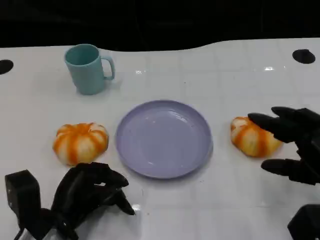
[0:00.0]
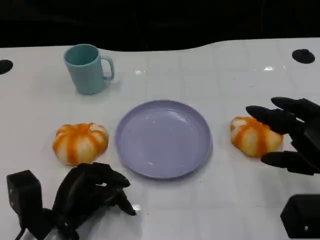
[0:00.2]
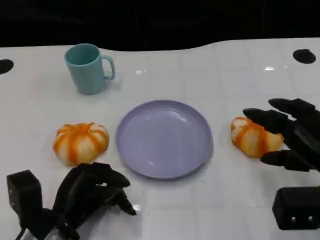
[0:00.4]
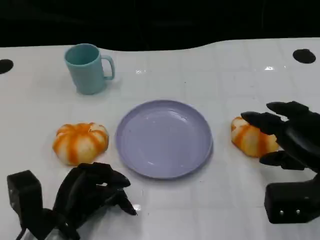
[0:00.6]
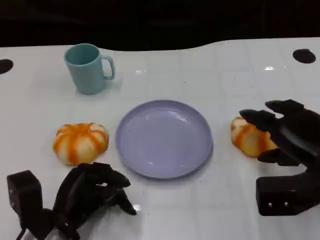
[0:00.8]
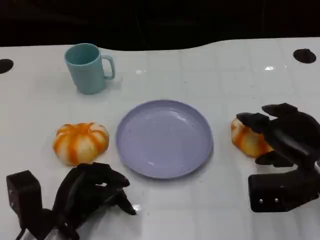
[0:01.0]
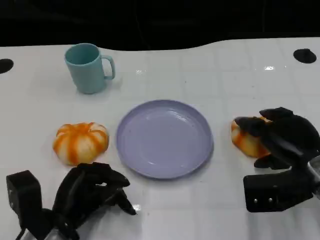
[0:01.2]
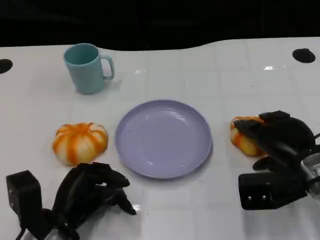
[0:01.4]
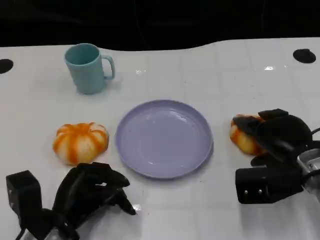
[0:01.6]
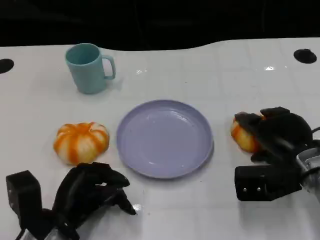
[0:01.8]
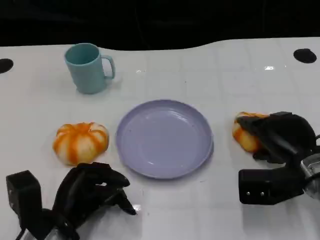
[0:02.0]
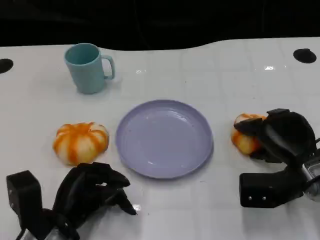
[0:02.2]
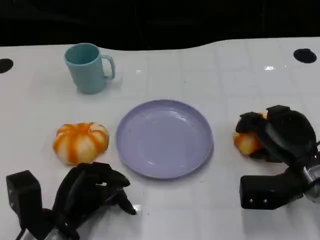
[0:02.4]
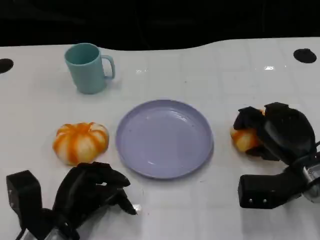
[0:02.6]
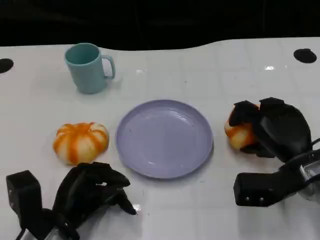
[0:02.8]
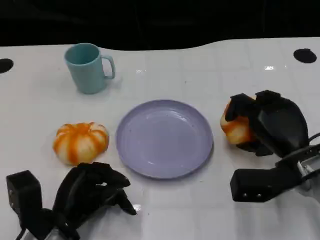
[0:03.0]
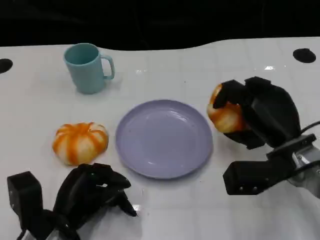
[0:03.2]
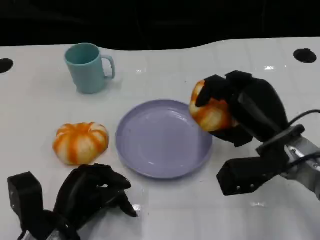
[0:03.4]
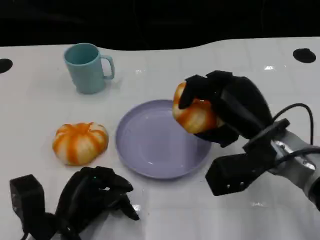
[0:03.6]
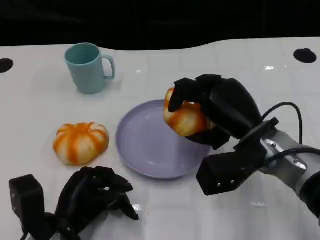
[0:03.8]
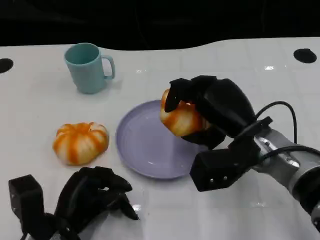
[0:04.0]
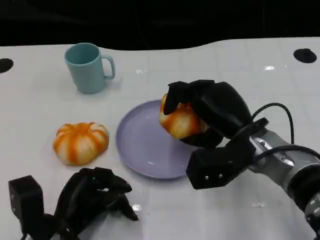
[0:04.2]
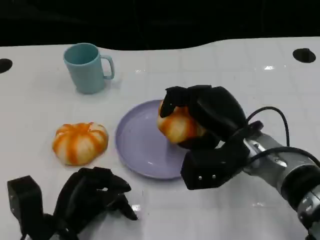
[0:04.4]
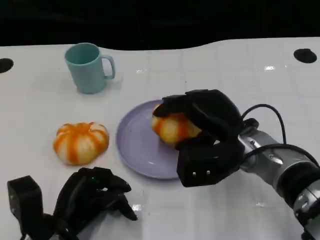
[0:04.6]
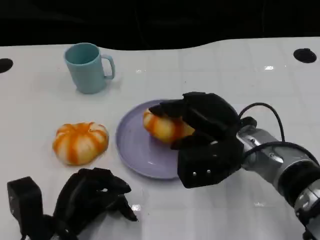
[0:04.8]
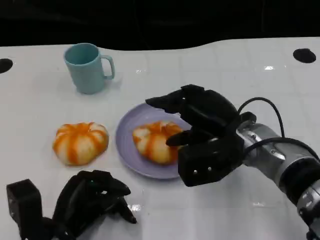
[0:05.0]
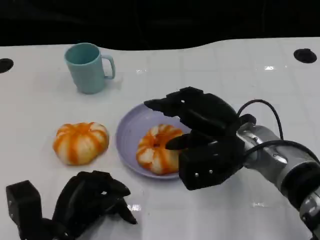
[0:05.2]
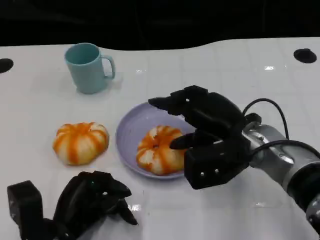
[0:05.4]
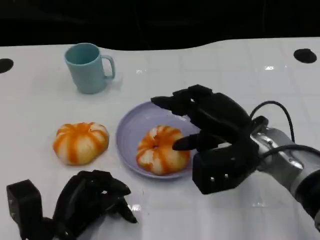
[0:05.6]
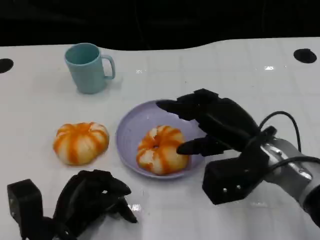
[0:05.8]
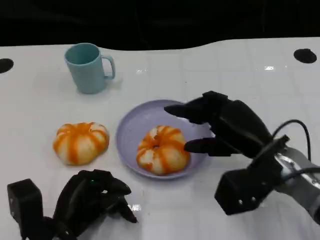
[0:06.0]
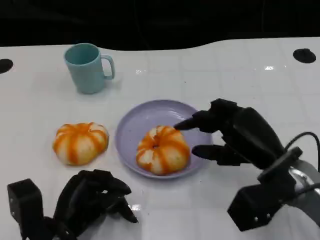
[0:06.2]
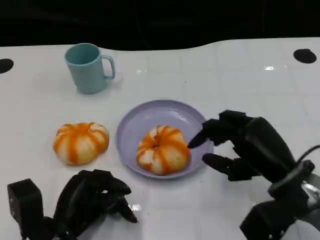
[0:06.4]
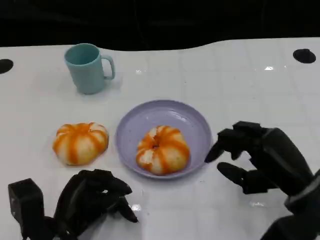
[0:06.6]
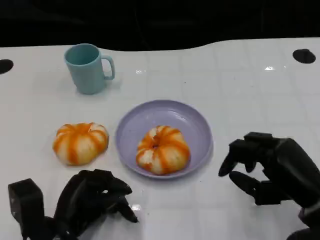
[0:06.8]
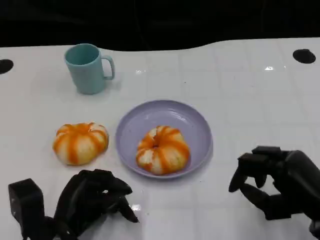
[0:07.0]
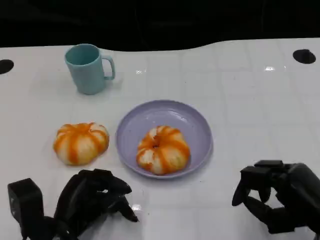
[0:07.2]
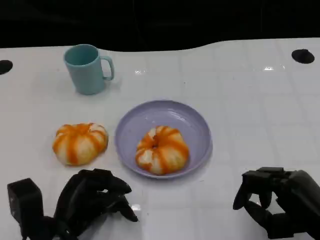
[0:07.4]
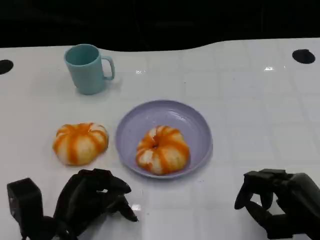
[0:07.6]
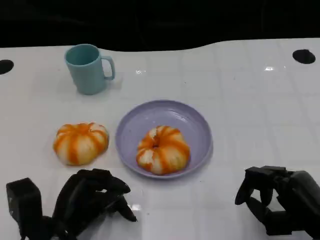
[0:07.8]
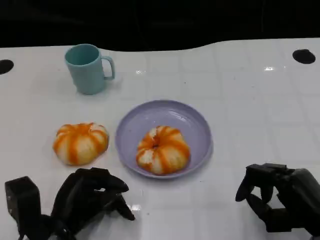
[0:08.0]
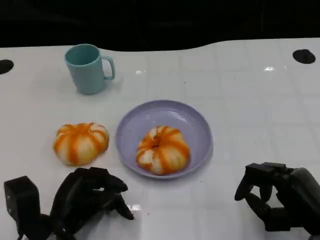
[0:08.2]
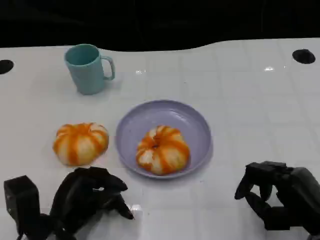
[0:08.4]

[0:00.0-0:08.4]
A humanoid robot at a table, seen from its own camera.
Task of the whole recording: Grasp the bread from the table and place it into the plate.
0:00.0 to 0:01.4: The right hand travels forward by some 5 cm.
0:02.8 to 0:04.2: The right hand is displaced to the left by about 10 cm.
0:04.2 to 0:05.6: The hands move only a little.
0:05.6 to 0:07.0: The right hand moves to the right and backward, roughly 15 cm.
0:07.0 to 0:08.4: There are only small adjustments of the hands.

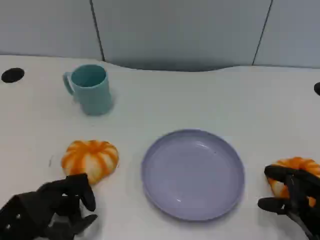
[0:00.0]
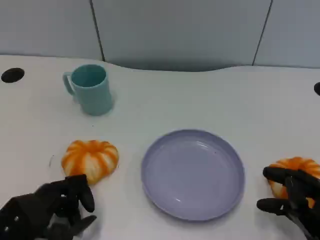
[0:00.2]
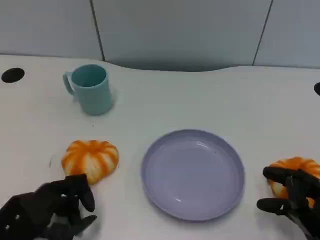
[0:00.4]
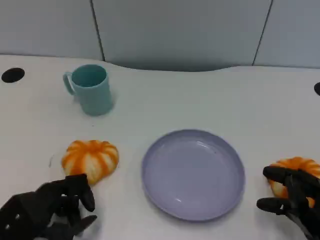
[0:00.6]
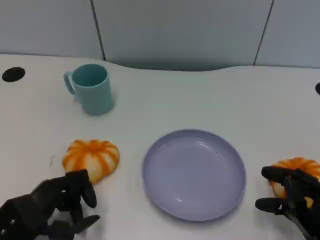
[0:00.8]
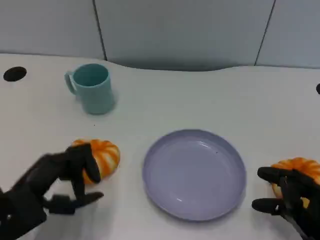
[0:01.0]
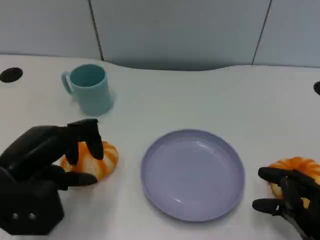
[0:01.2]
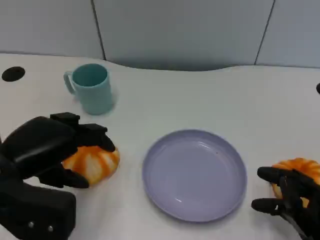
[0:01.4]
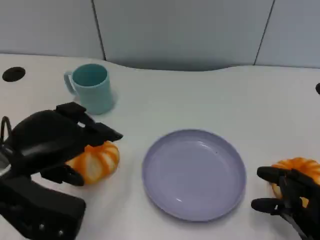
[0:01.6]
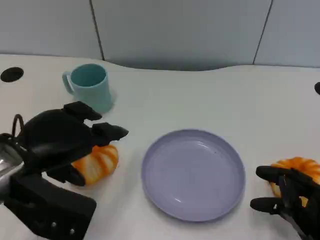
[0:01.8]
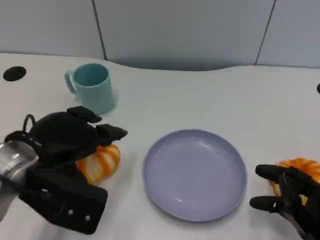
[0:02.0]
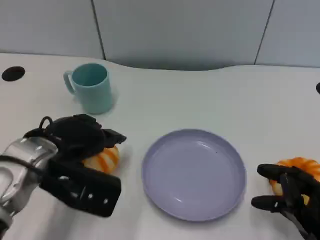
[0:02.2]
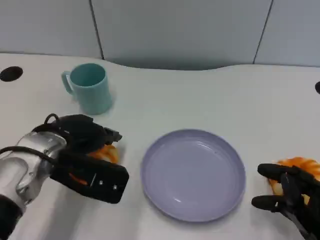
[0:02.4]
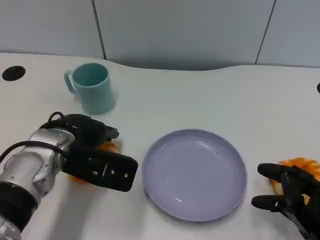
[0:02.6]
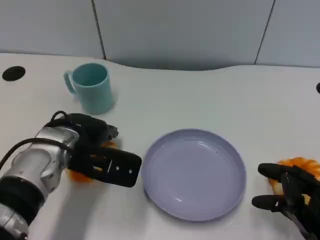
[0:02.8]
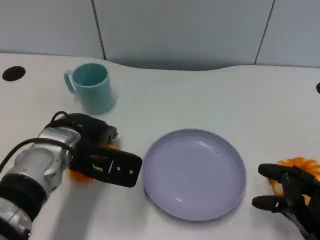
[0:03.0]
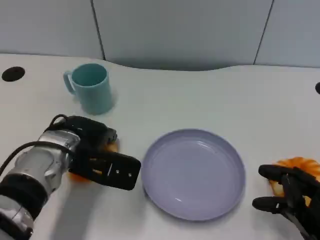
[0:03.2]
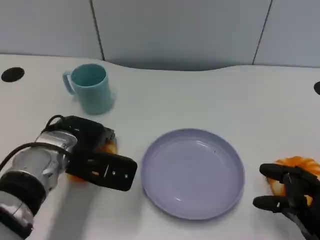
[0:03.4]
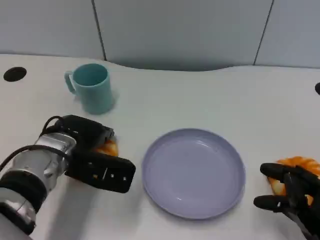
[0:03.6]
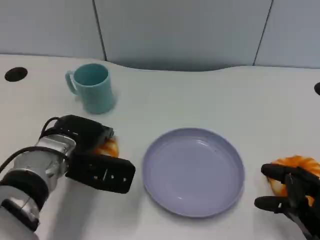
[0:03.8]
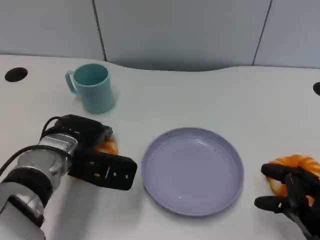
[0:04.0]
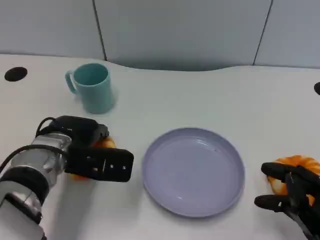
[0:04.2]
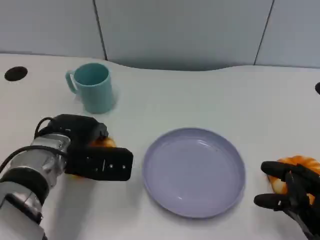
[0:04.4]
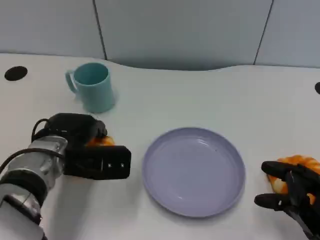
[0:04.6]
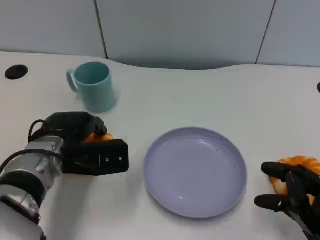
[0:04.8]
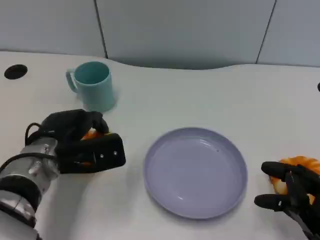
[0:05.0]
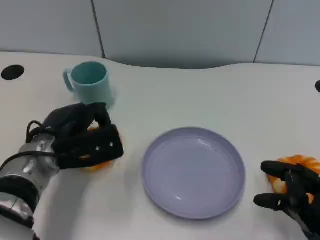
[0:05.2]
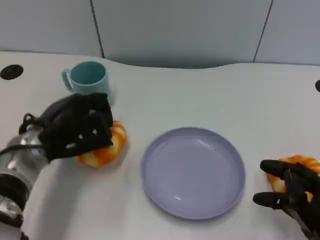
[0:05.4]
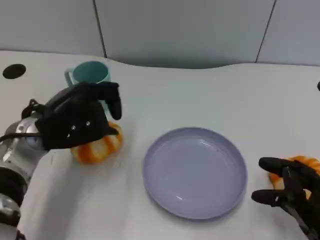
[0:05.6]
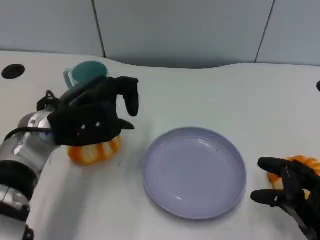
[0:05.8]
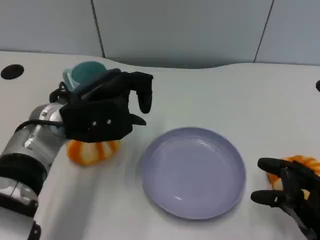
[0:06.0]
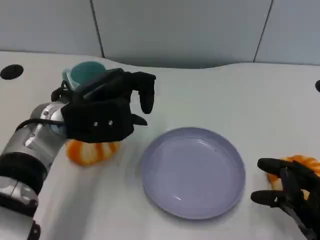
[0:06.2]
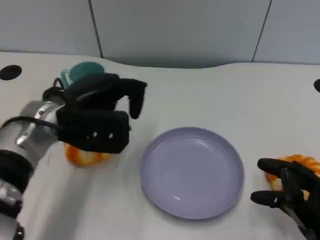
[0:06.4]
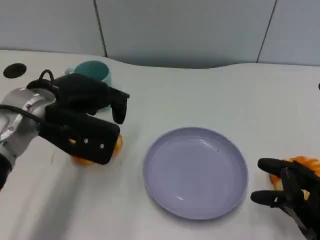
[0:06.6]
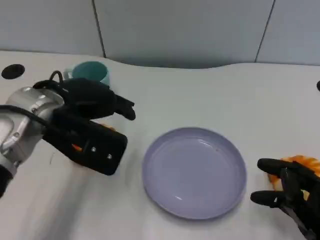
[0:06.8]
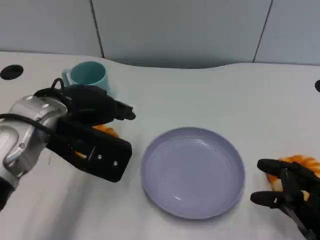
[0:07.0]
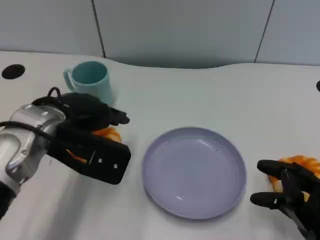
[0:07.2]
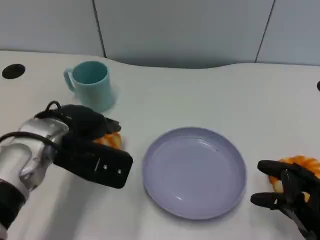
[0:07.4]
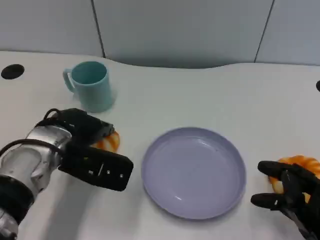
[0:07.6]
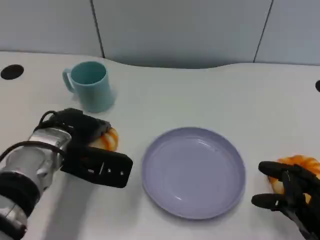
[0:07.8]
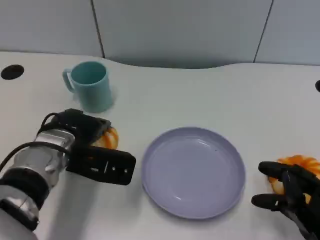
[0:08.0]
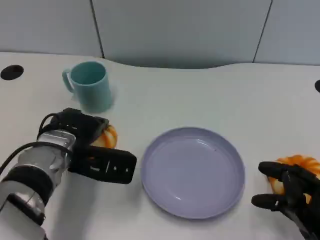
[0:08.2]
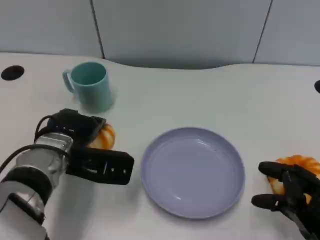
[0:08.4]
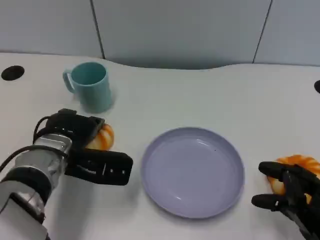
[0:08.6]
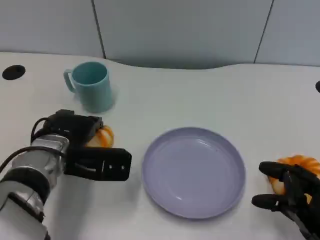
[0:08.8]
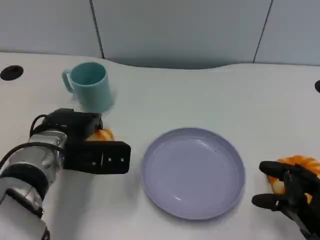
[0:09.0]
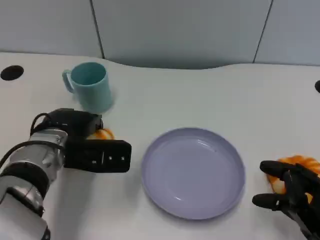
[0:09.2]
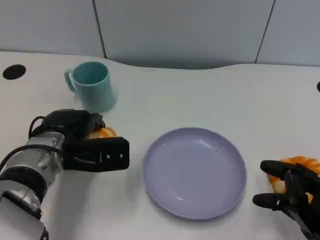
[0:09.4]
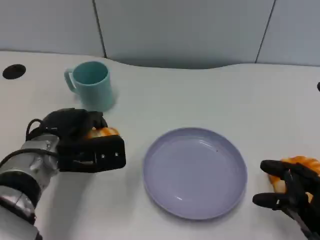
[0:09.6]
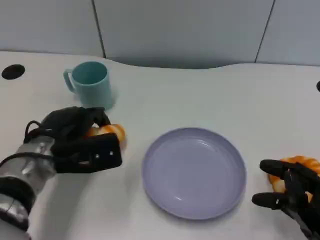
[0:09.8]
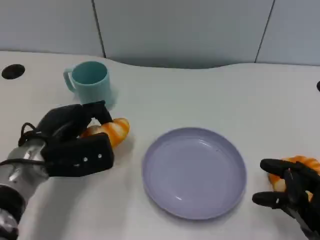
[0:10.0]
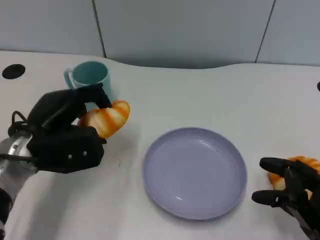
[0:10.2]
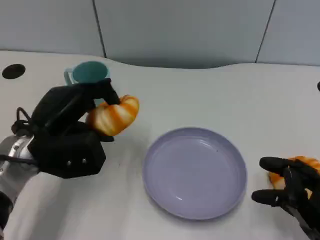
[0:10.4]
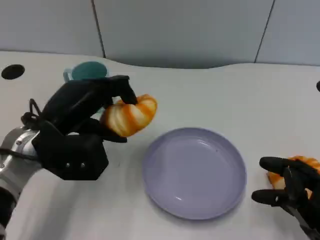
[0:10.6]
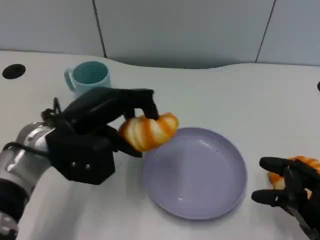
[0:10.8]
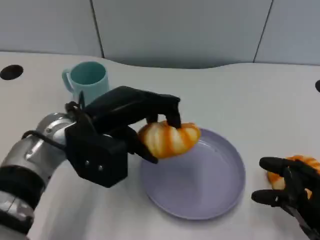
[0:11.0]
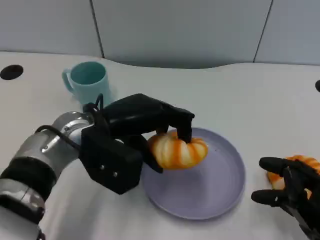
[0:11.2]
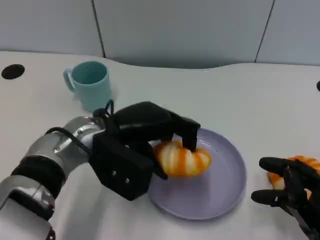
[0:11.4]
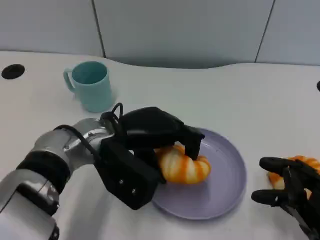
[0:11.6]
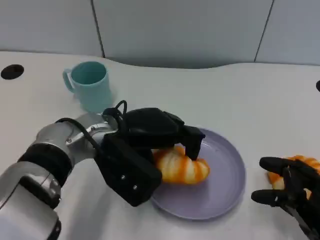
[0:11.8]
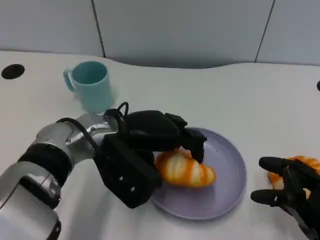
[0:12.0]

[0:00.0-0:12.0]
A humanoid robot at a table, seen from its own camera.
Task of the whole recording: Grasp the bread from the table and place it into the plate.
0:00.0 to 0:01.6: The left hand is displaced upward by approximately 15 cm.
0:01.6 to 0:03.0: The left hand is displaced forward, to the right and downward by approximately 10 cm.
0:03.0 to 0:04.4: The hands make only small movements.
0:04.4 to 0:06.0: The left hand goes some 5 cm upward.
0:07.6 to 0:09.0: The hands stay close to where they were, moving slightly.
0:10.4 to 0:12.0: The left hand heads to the right, covering roughly 10 cm.

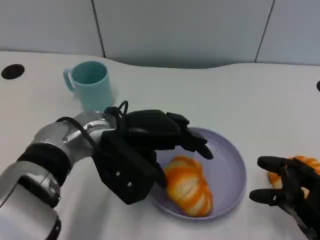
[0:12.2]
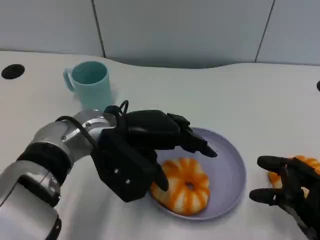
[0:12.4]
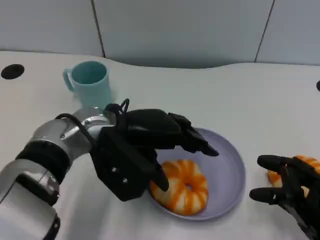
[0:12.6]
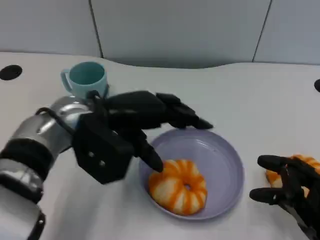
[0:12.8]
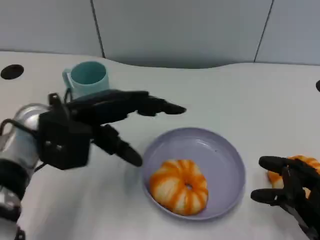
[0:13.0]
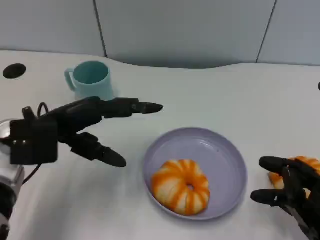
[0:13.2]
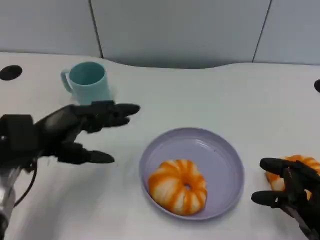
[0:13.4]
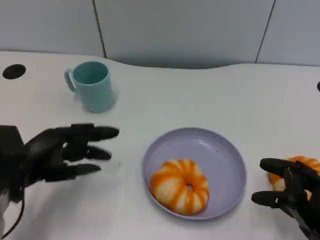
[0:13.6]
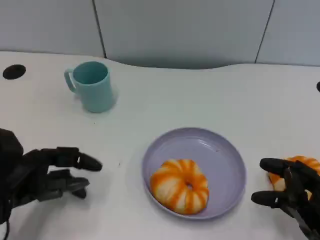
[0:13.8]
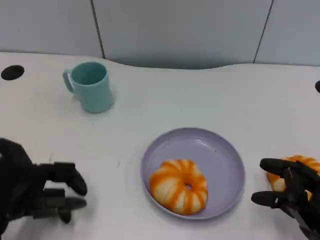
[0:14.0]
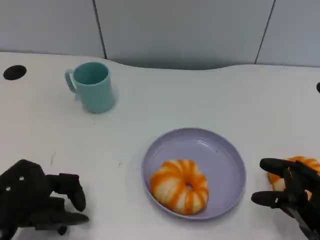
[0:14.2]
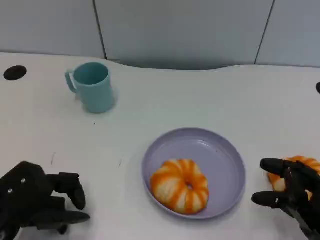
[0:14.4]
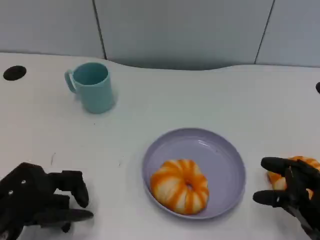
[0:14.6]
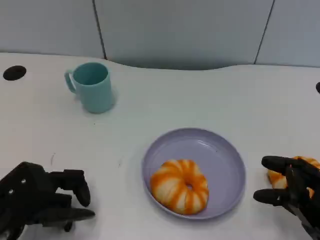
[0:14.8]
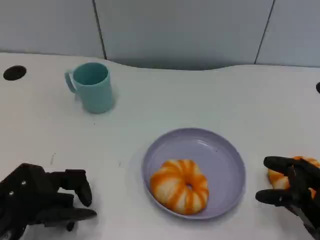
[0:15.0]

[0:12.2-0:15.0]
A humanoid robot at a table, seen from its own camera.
Task of the whole recording: Grasp the bread from the table and place it into the plate.
0:12.2 to 0:13.6: The left hand travels to the left by some 15 cm.
